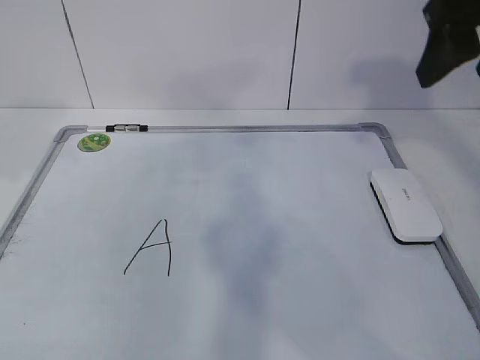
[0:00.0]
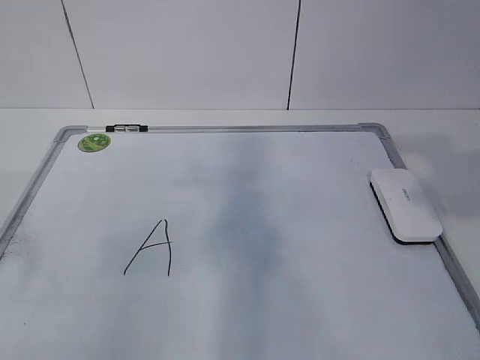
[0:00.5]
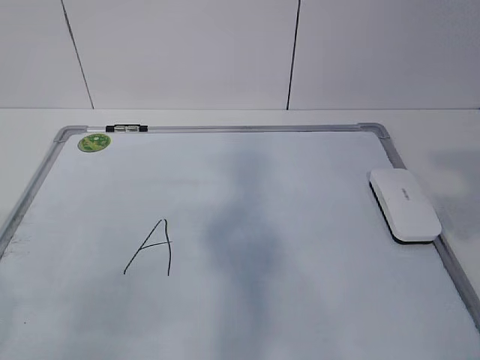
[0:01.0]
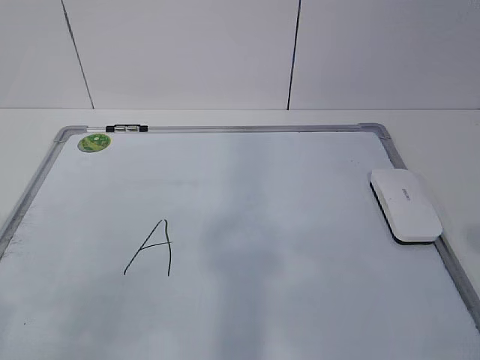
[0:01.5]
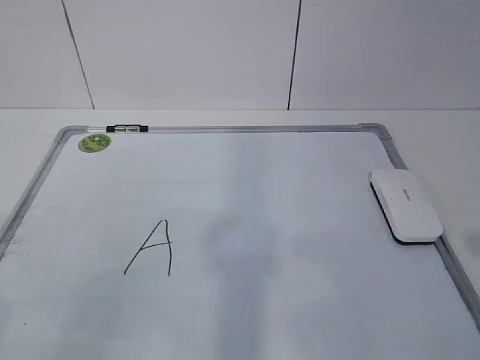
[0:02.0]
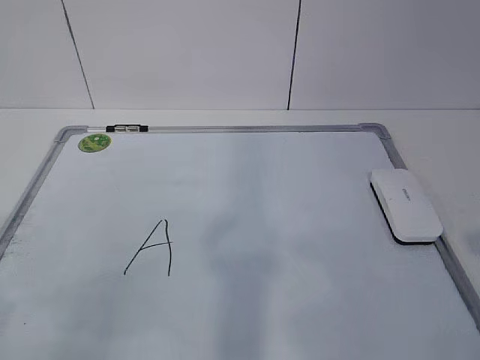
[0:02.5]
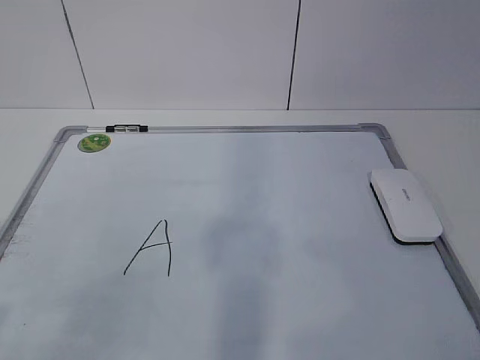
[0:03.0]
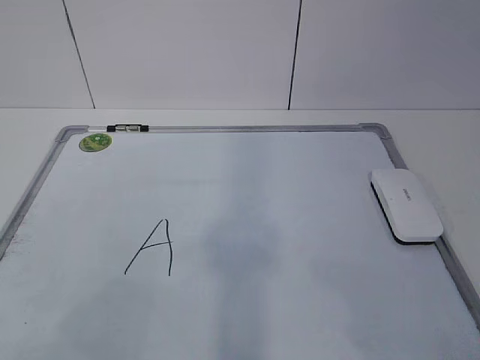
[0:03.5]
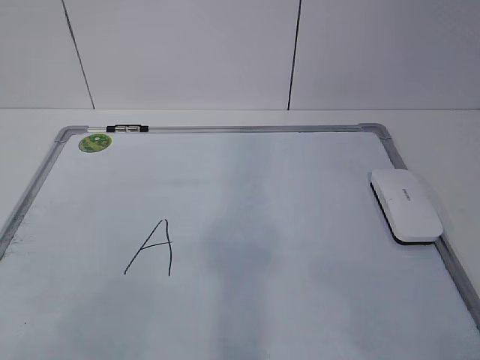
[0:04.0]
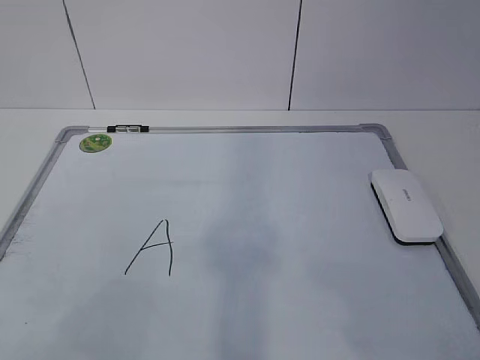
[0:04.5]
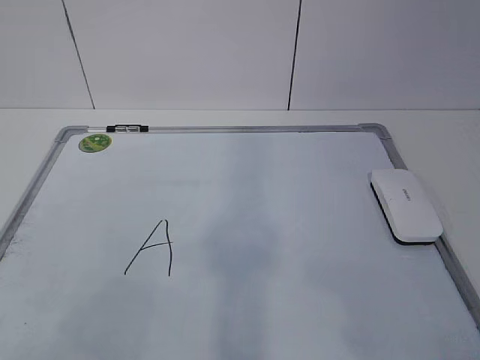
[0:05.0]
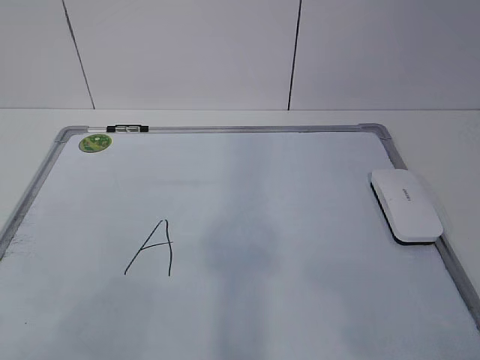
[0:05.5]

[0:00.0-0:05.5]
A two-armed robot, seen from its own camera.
Task of the whole recording: pick up the eraser on the blackboard and erase the letter "a".
0:00.0 to 0:02.0: The two grippers go approximately 25 cm backward and downward.

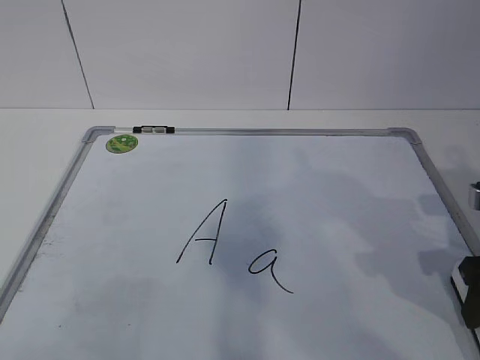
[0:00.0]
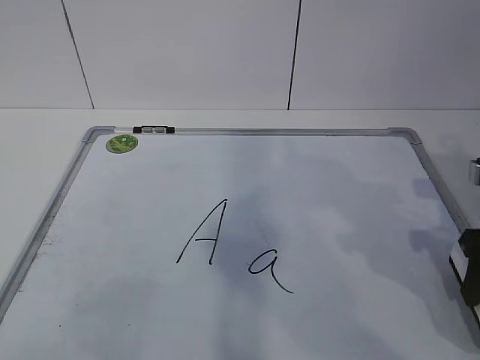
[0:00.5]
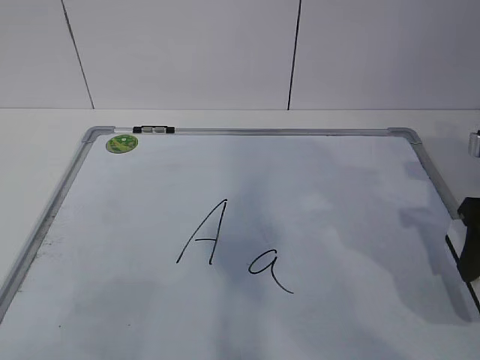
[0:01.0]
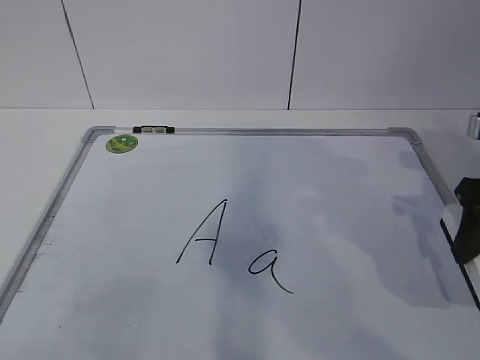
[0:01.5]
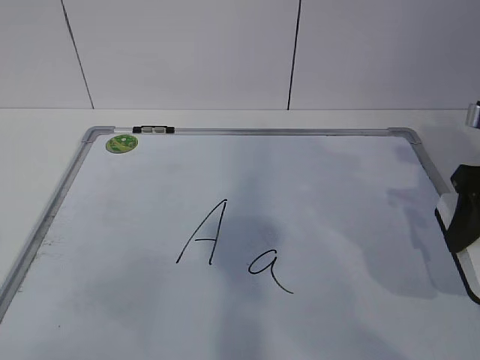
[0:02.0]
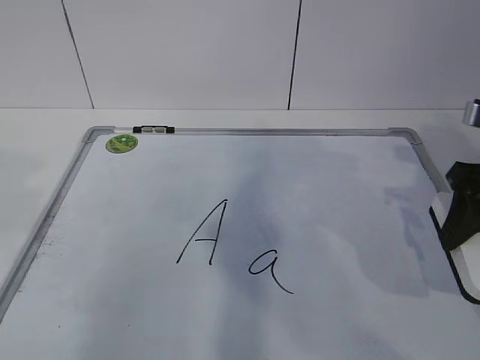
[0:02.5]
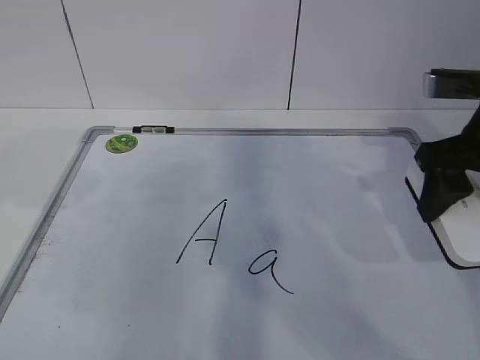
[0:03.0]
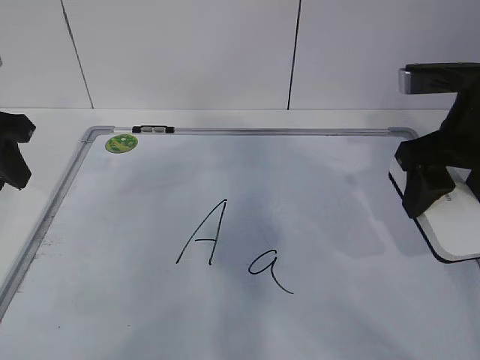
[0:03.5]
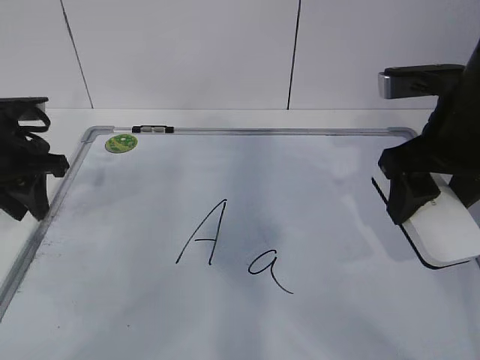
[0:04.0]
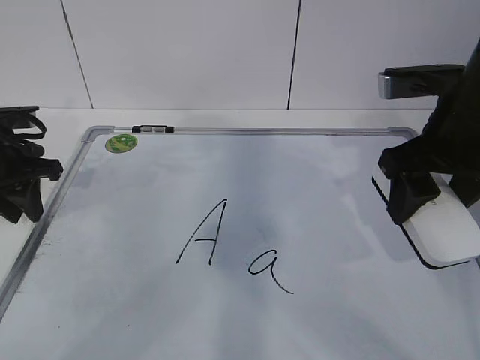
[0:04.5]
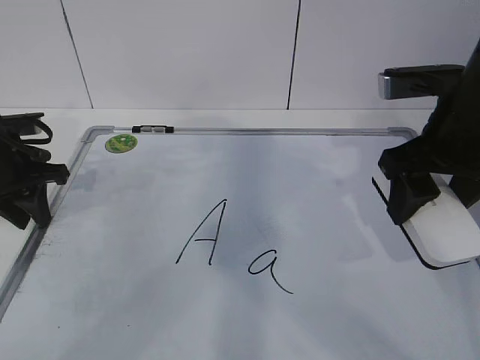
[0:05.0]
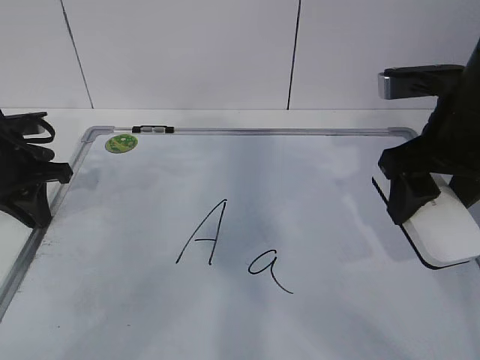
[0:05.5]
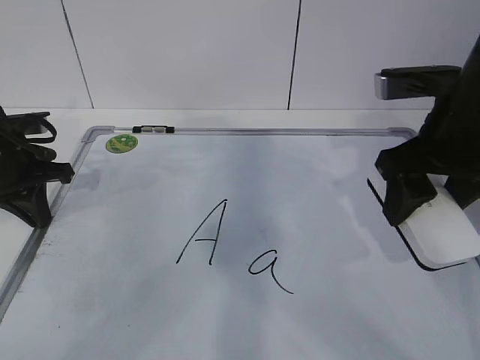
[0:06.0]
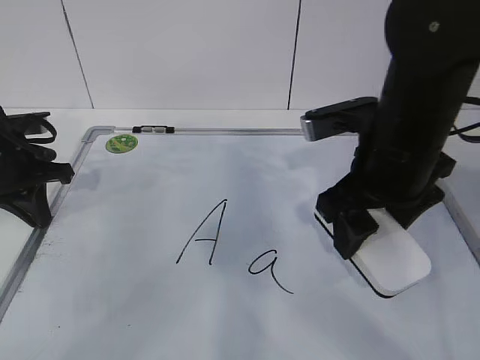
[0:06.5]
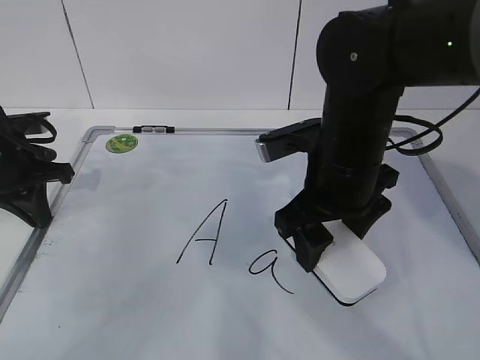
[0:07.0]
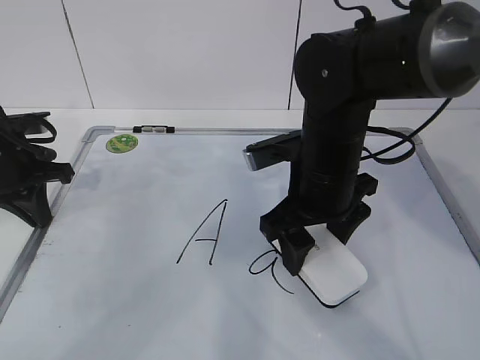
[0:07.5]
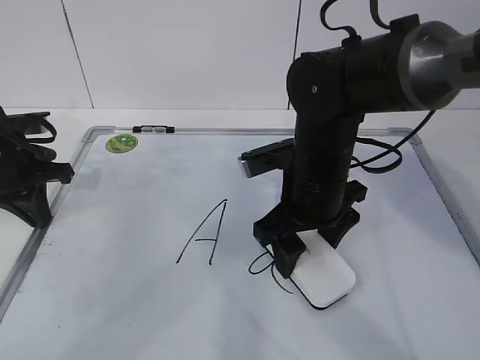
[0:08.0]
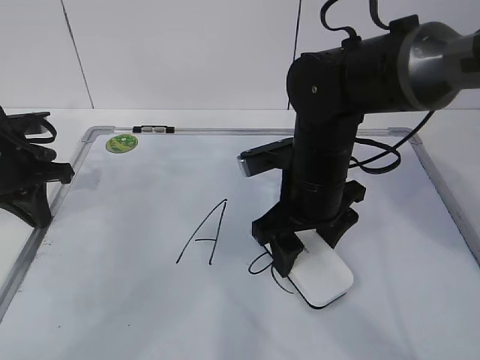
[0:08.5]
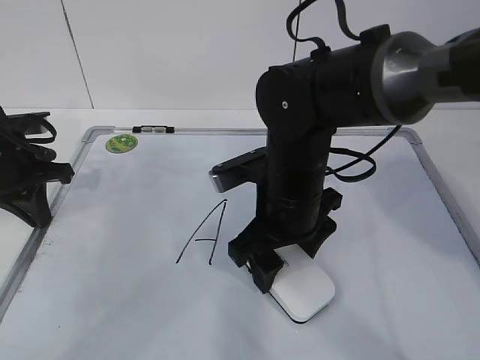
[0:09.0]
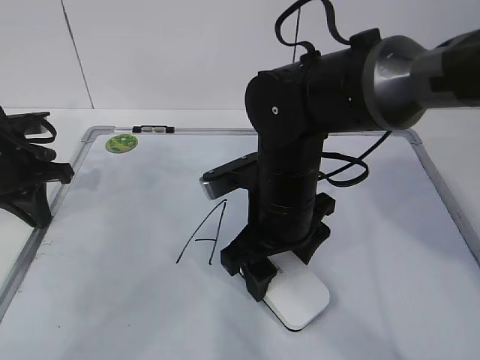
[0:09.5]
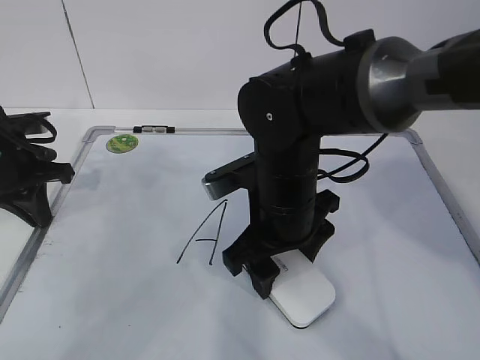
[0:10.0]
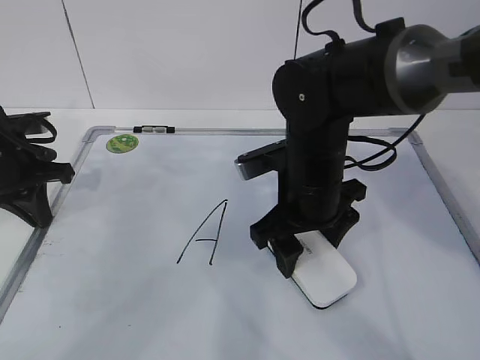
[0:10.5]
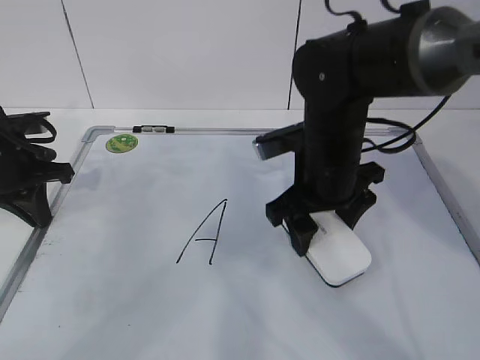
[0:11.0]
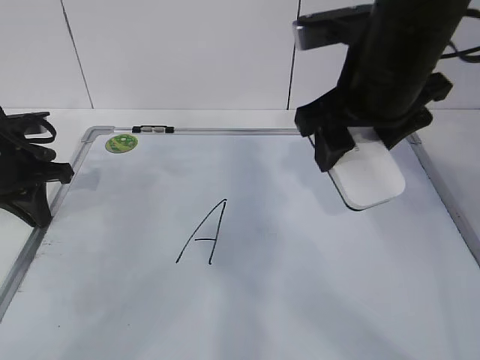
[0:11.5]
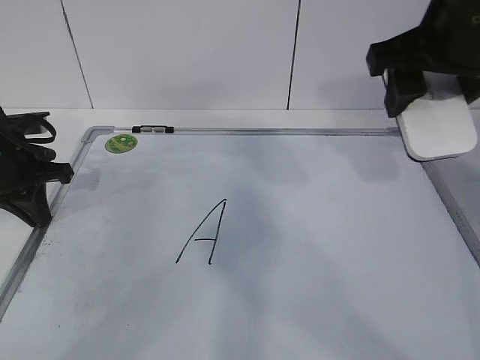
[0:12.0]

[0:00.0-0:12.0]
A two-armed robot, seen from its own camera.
Task of the whole recording: pick up the eraser on the blackboard and erase the letter "a".
Step, 0:00.0 to 0:02.5: Hold the drawing board steady with your left hand.
Step, 0:03.0 to 0:06.5: Erase the letter a with your right hand.
Step, 0:07.0 to 0:10.5: Put down the eraser with your right hand.
0:00.0 to 0:02.0: The right gripper moves upward, about 5 cm.
0:02.0 to 0:04.0: The left gripper goes approximately 35 cm forward, while the right gripper is displaced to the left by some 10 cm.
0:04.0 to 0:06.0: The left gripper closes.
0:06.0 to 0:08.0: The right gripper goes roughly 15 cm to the left and downward.
0:08.0 to 0:10.0: There are only small adjustments of the grippers.
0:10.0 to 0:12.0: The right gripper goes some 20 cm upward and to the right.

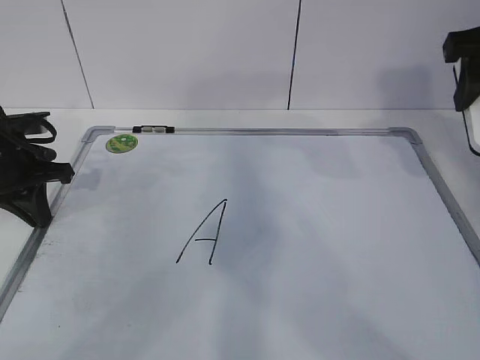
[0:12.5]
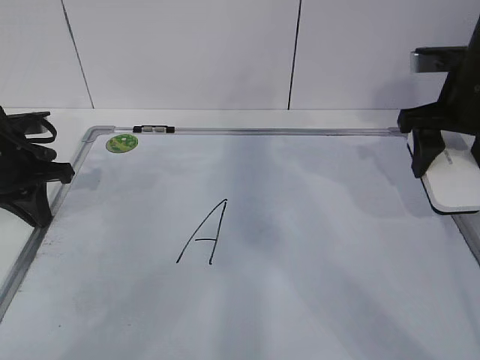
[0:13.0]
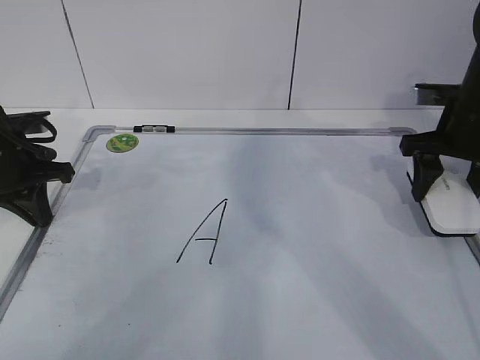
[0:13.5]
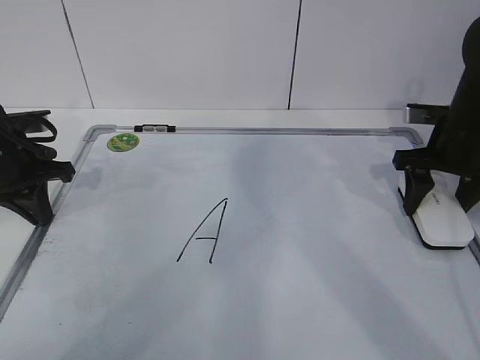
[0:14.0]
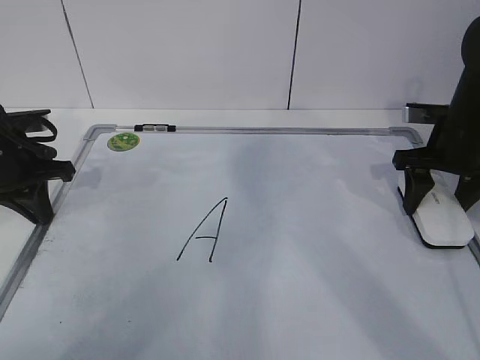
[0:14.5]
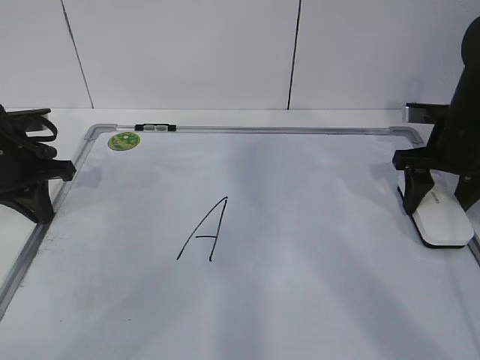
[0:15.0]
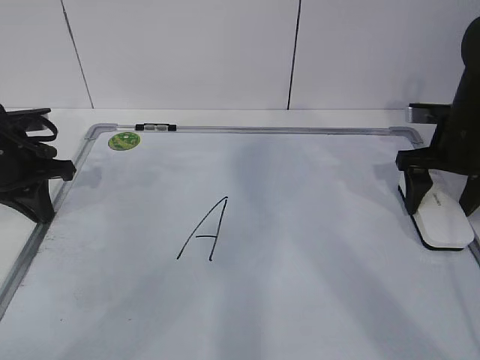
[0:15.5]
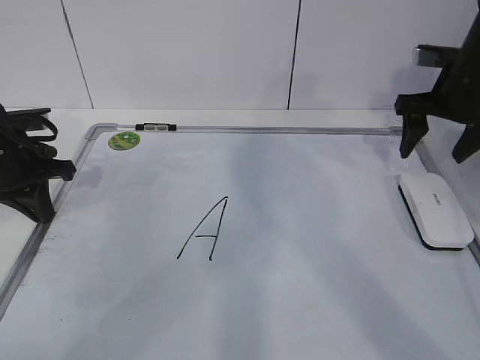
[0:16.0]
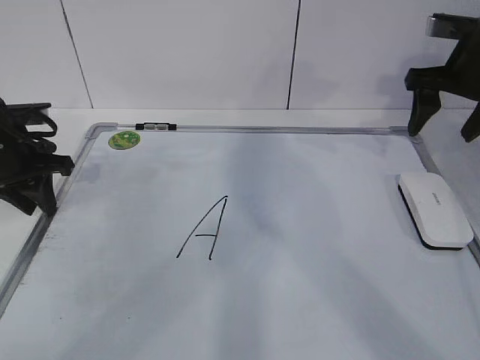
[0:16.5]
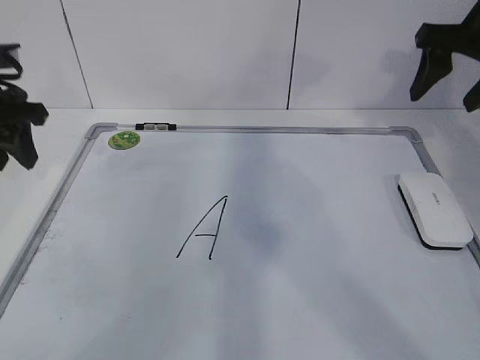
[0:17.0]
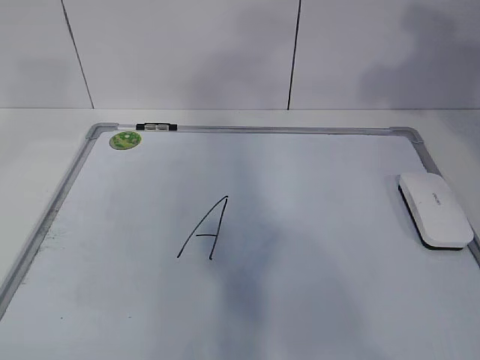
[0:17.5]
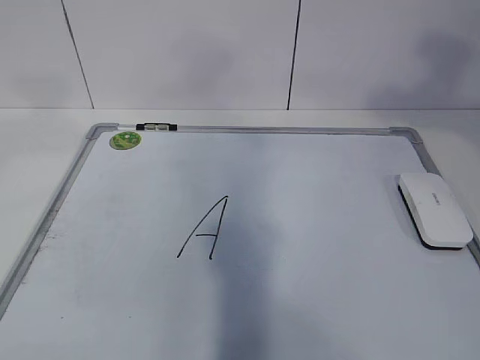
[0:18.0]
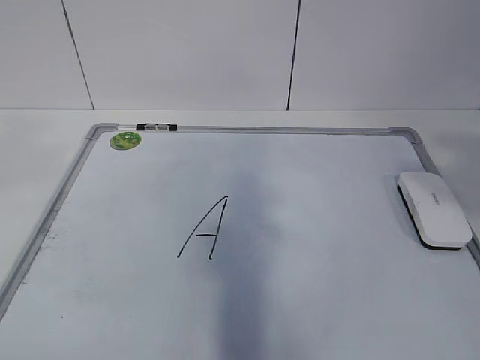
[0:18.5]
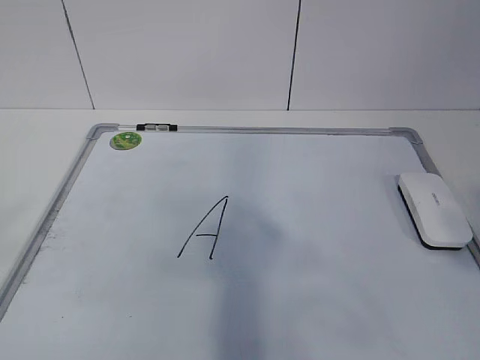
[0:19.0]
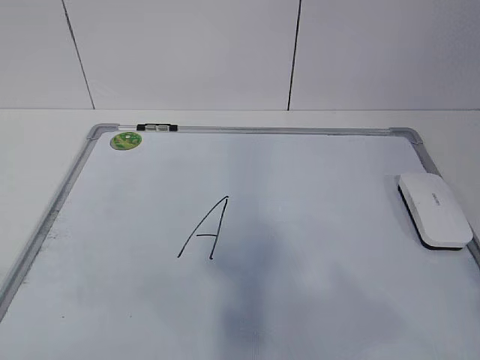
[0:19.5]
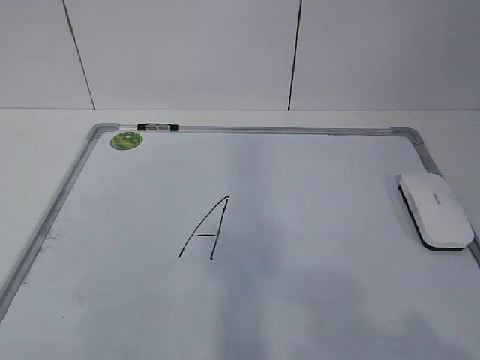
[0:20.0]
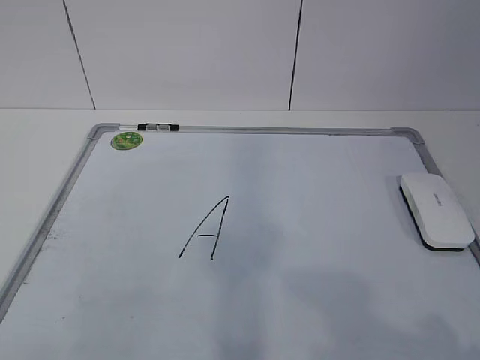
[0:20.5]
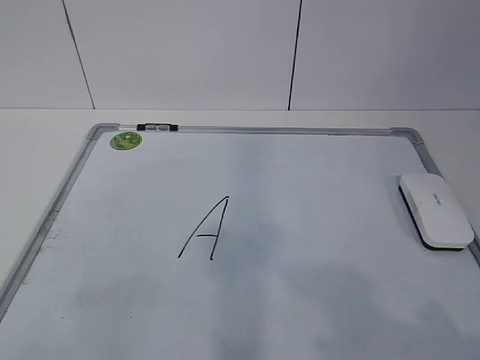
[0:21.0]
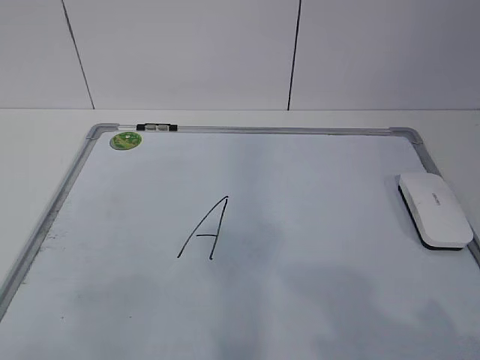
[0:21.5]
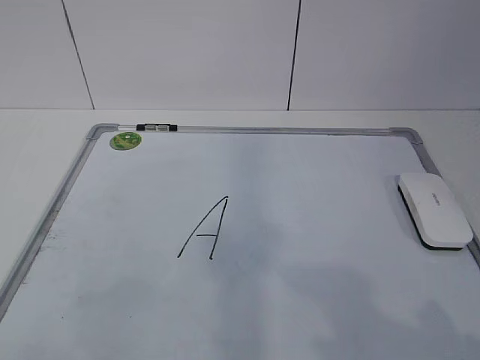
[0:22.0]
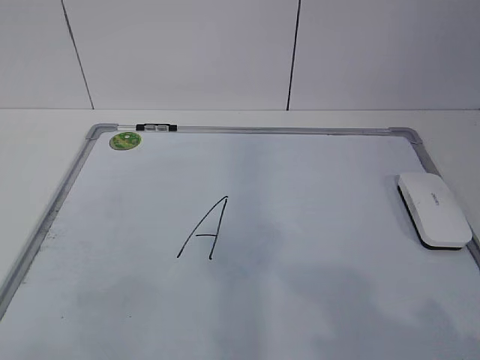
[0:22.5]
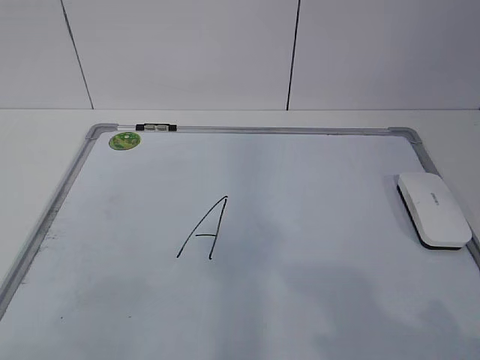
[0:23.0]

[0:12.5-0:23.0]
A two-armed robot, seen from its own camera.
Task of the whole recording: pick up the eraser on the blackboard and erase the letter "a".
0:12.5 to 0:14.5: The right gripper goes some 20 cm downward and forward.
0:14.5 to 0:16.5: The right gripper moves upward, roughly 10 cm, and opens up. The left gripper opens.
0:16.5 to 0:19.0: The left gripper moves backward and upward, approximately 50 cm; the right gripper shifts about 40 cm backward, and closes its fingers.
0:19.0 to 0:21.0: Both grippers move downward, about 15 cm.
0:21.0 to 0:23.0: The grippers stay close to where they were, moving slightly.
